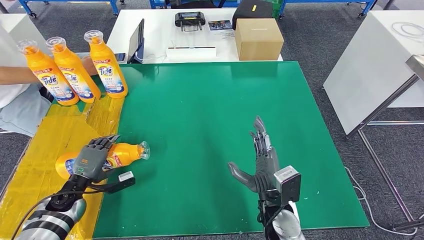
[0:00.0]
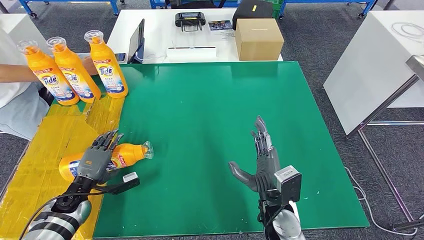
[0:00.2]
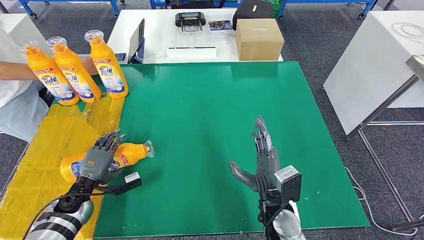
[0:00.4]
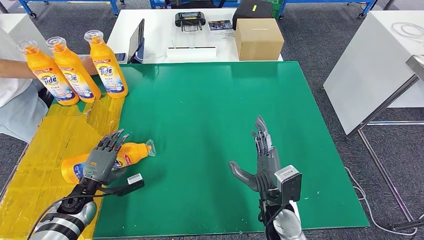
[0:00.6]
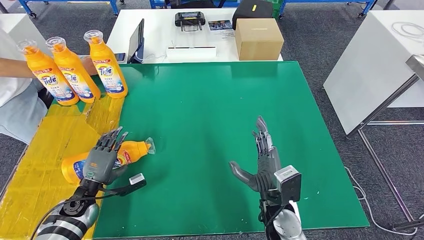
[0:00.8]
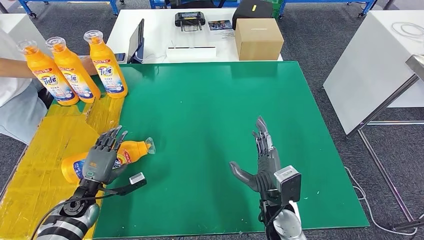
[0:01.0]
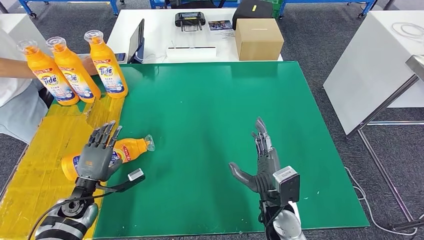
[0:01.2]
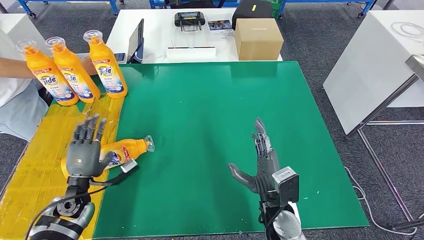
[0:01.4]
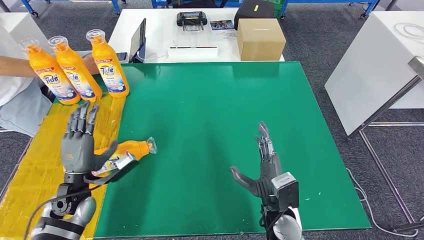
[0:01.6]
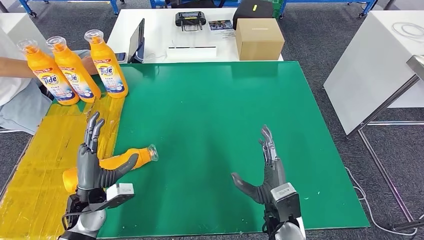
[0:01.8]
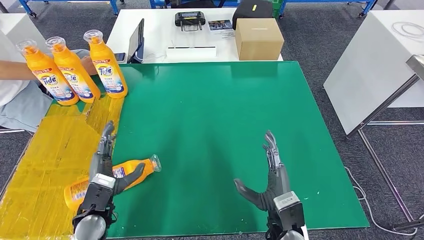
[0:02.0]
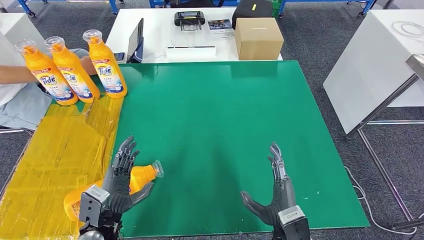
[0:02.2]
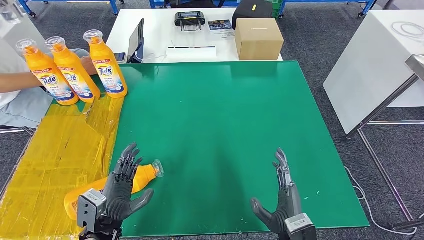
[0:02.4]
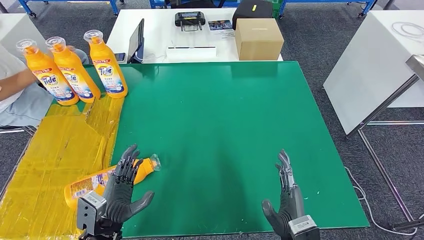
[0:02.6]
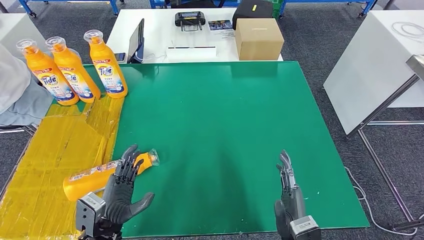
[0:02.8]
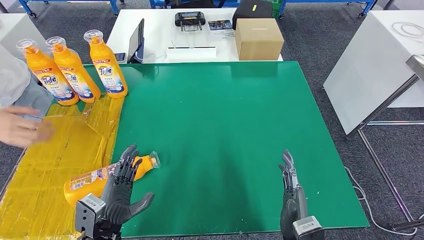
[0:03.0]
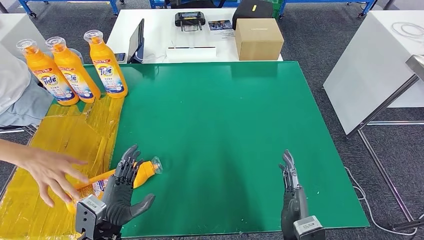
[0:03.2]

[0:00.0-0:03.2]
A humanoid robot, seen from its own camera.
Step, 0:00.0 to 0:03.2: Flip the bottle to face forward.
0:00.0 to 0:01.6: The left hand travels upward and to the right by roughly 10 cm.
